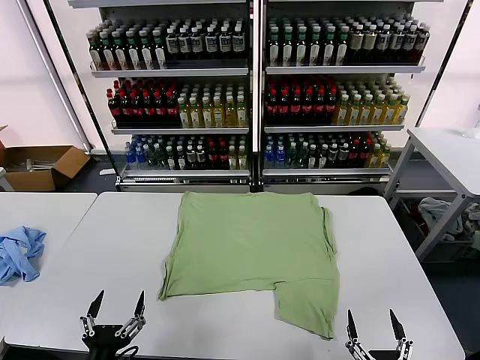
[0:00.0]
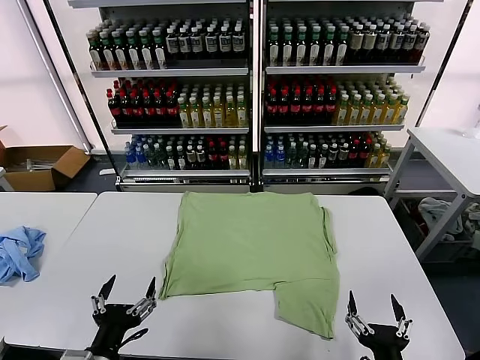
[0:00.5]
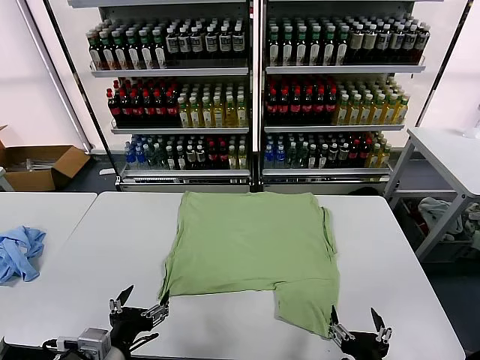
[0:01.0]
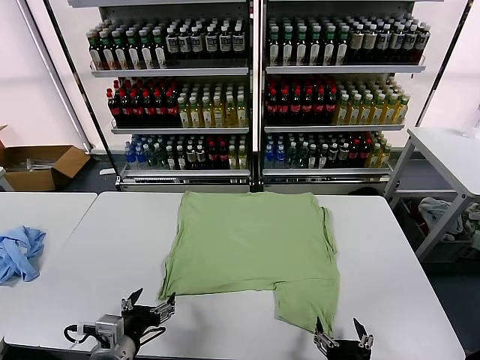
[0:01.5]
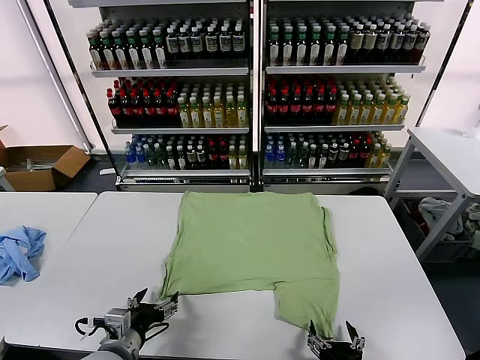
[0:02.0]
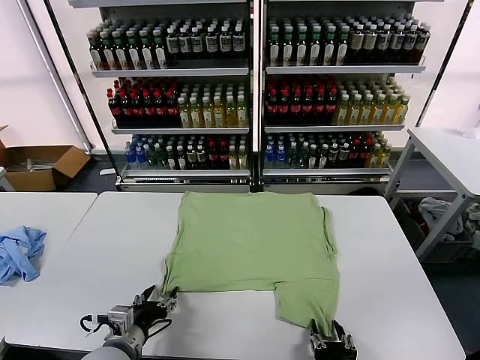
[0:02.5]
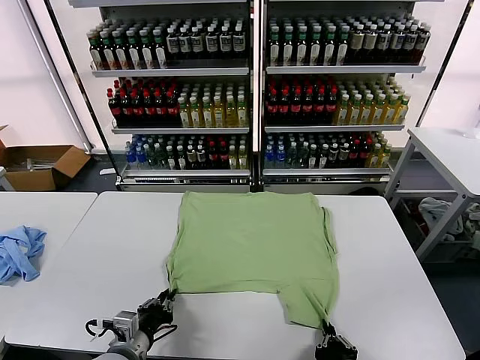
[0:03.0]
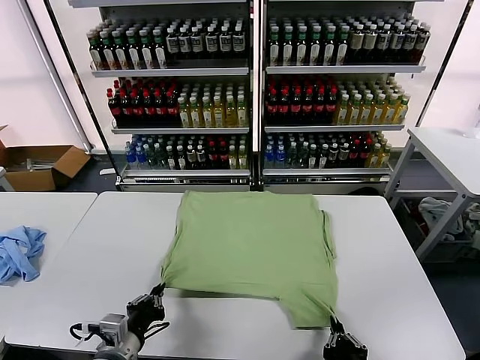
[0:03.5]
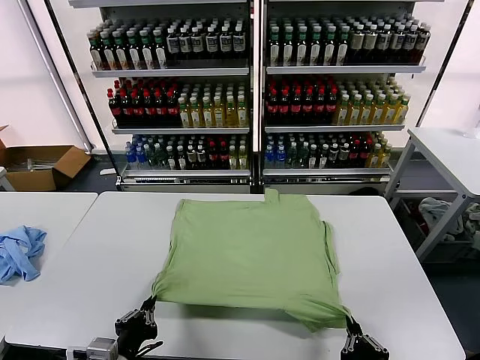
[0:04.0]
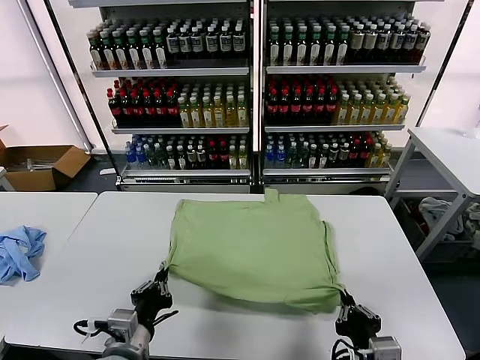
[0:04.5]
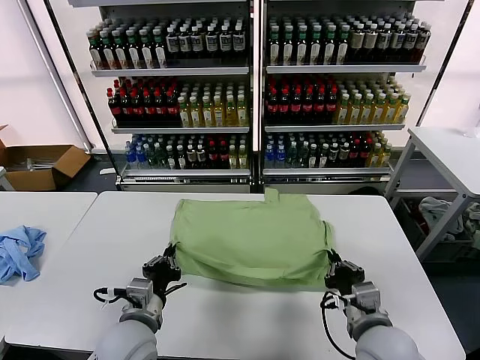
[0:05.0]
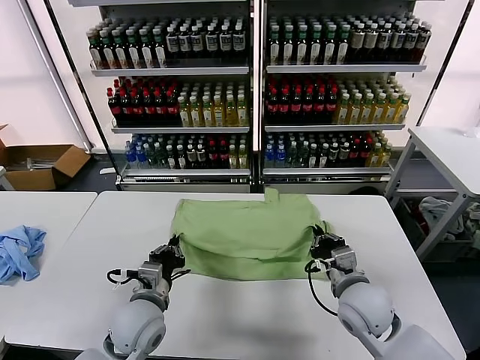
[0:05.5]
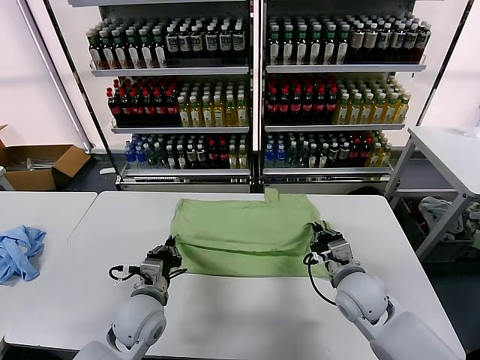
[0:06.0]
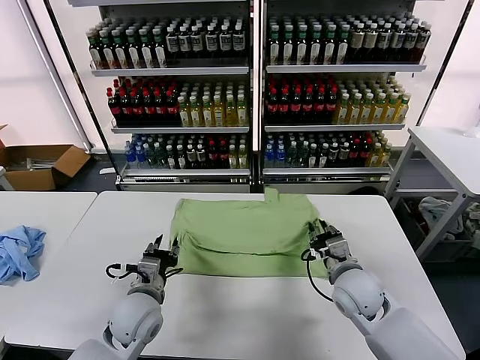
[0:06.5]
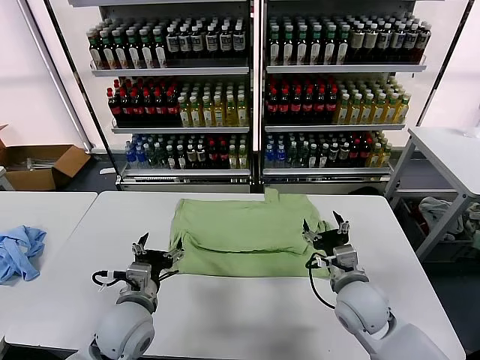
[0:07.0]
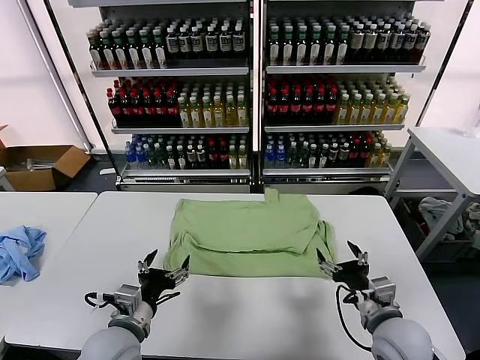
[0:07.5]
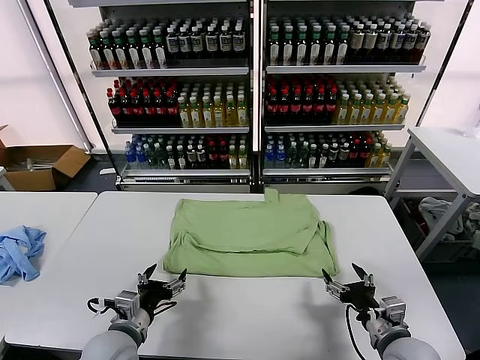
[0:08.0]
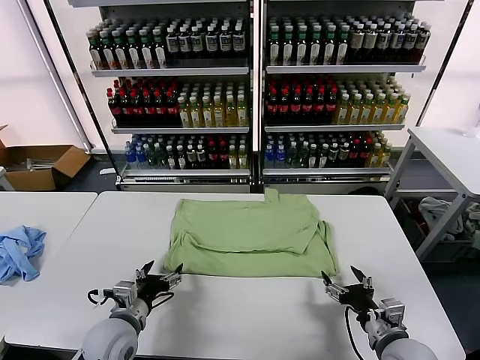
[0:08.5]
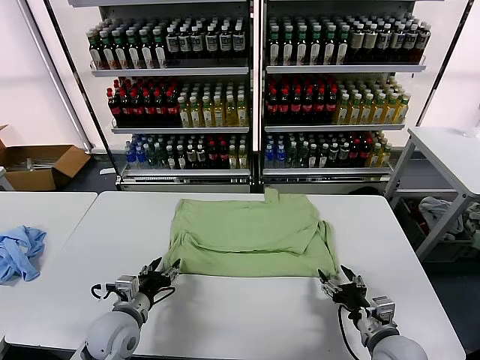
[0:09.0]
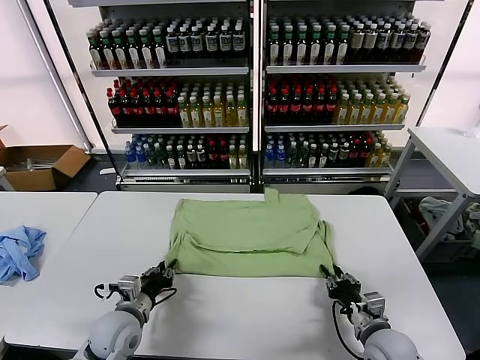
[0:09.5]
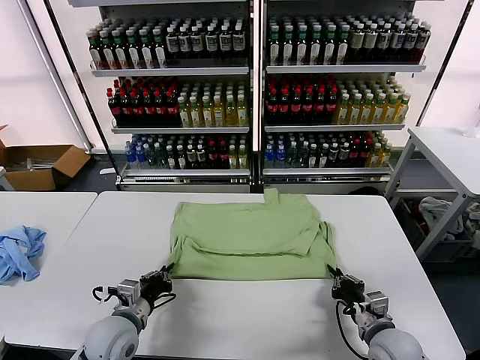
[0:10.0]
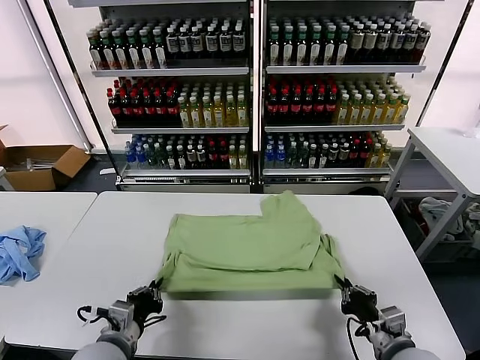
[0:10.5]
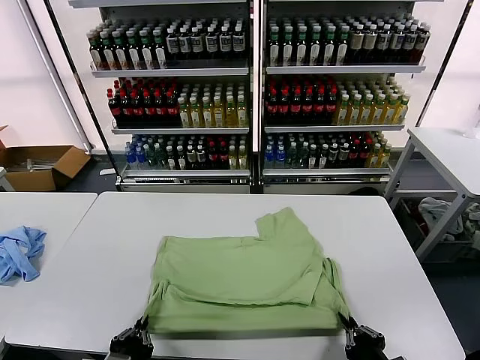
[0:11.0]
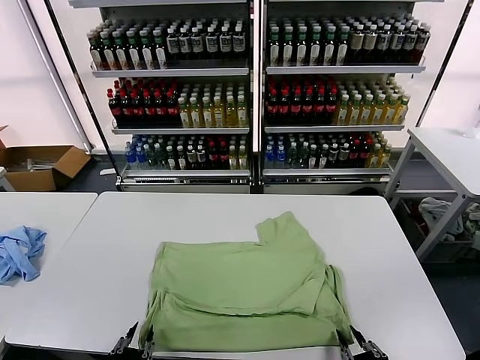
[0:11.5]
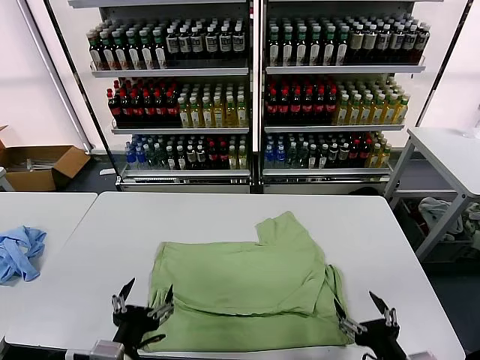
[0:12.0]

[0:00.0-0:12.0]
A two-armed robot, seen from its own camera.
Task of the whole recording: fold and organize the clothes.
Step, 0:00.0 to 0:03.0: use both grippers simultaneously to clamp the lower edge of the clothing fabric.
Step, 0:03.5 to 0:06.5: use both grippers to drag the lower edge of the fabric forward and fold it over the upper edge.
Step, 0:07.0 to 0:11.5: Drag the clothes downward with both gripper.
0:02.0 to 0:04.0: The left gripper shifts about 5 cm backward, and closes. The right gripper ends up approximately 5 cm from where it was, and closes up.
0:04.0 to 0:06.0: The left gripper is displaced forward by about 15 cm. The right gripper goes roughly 25 cm forward.
0:06.0 to 0:08.0: The left gripper moves backward, some 5 cm, and opens its fingers. The right gripper is displaced backward and to the right by some 15 cm, and opens up.
0:08.0 to 0:10.0: The left gripper closes its fingers; the right gripper closes.
0:10.0 to 0:12.0: The two grippers go some 15 cm backward and upward. The left gripper opens its fingers; the right gripper opens up.

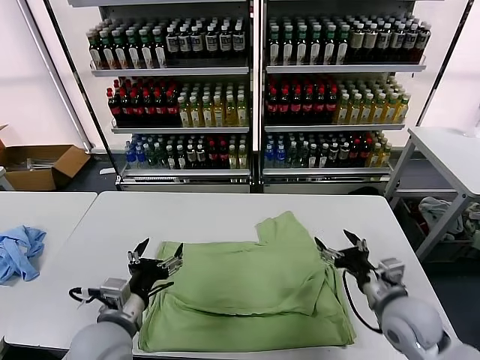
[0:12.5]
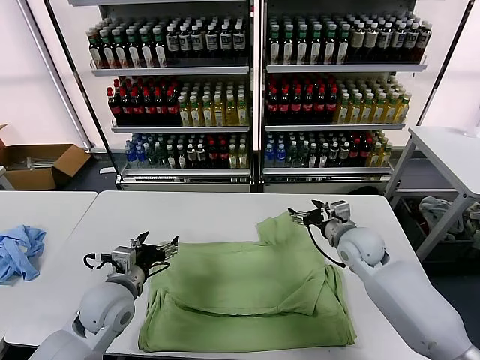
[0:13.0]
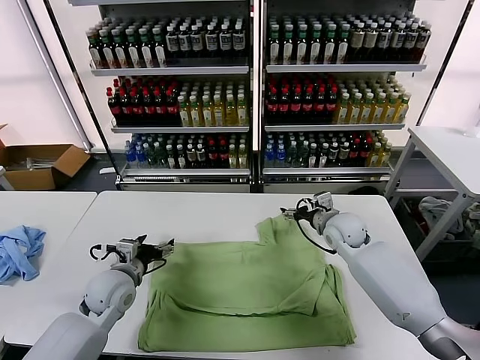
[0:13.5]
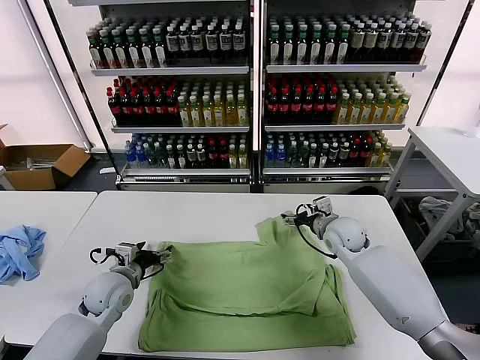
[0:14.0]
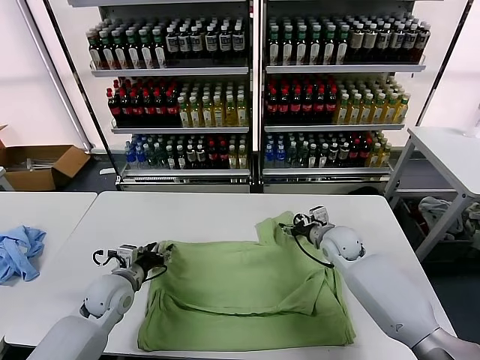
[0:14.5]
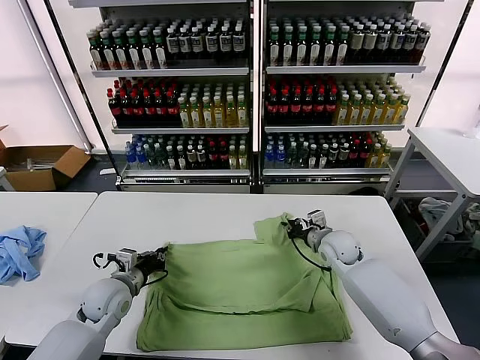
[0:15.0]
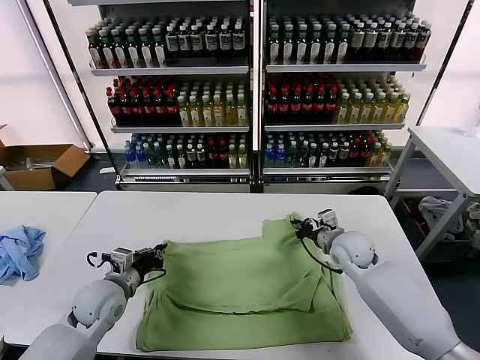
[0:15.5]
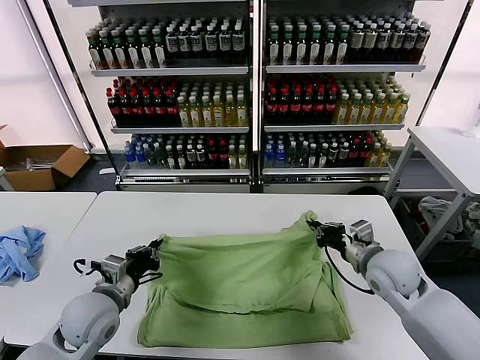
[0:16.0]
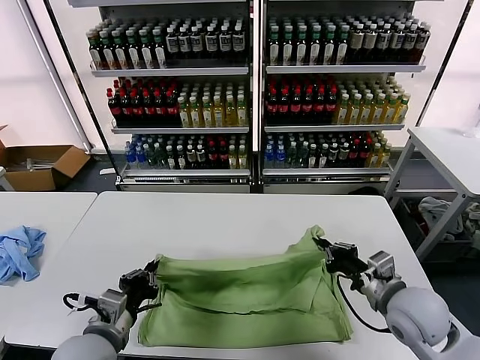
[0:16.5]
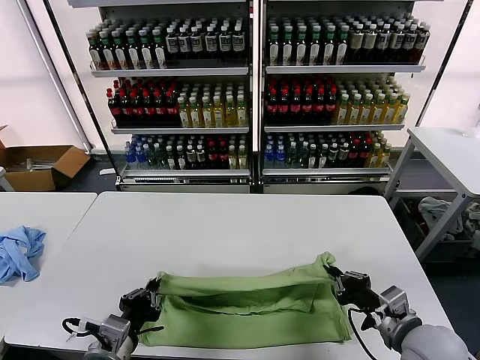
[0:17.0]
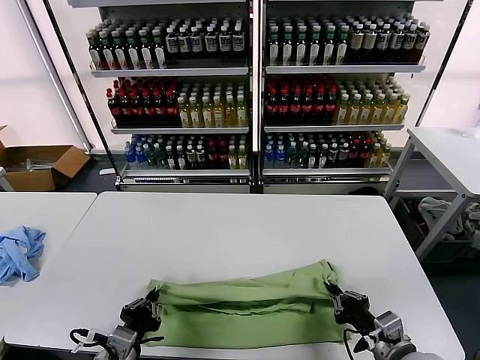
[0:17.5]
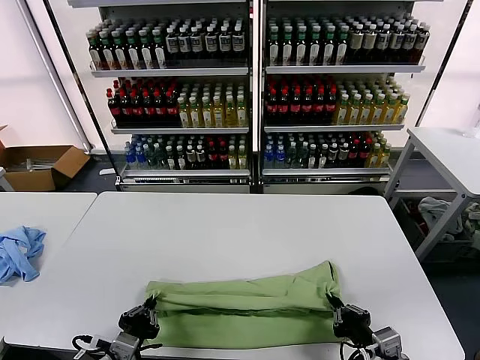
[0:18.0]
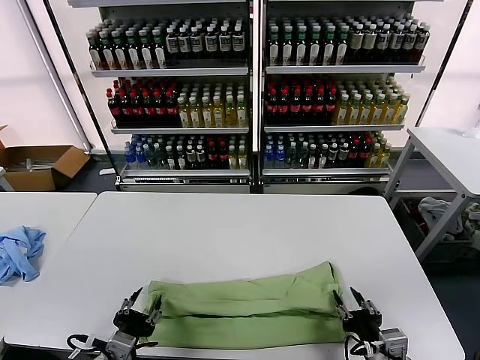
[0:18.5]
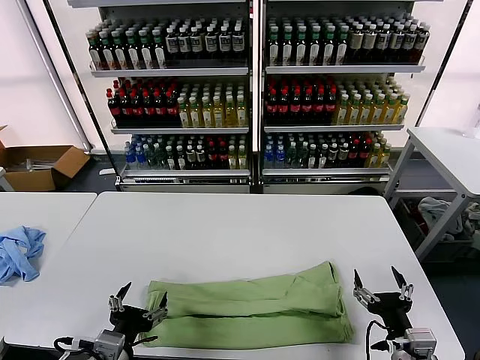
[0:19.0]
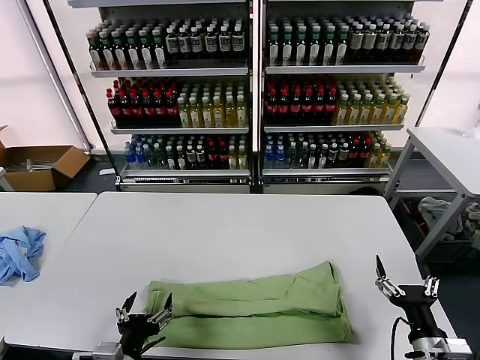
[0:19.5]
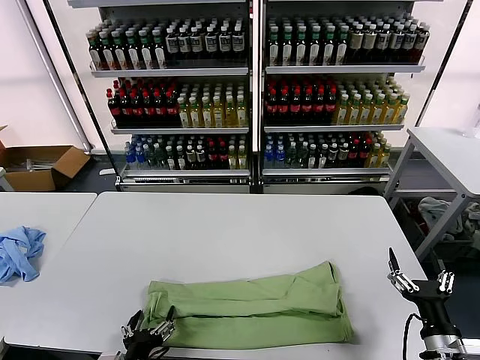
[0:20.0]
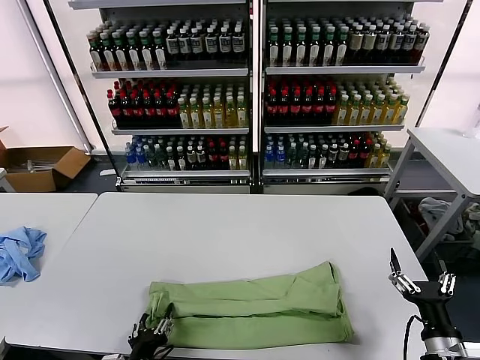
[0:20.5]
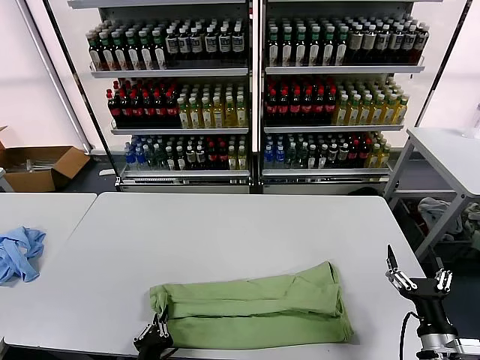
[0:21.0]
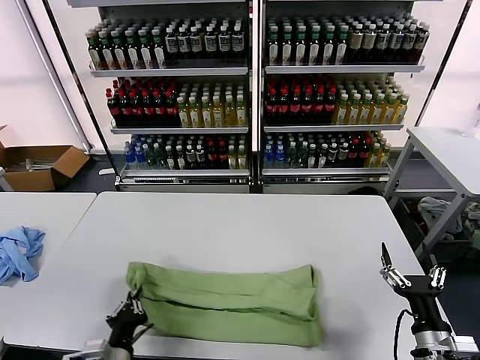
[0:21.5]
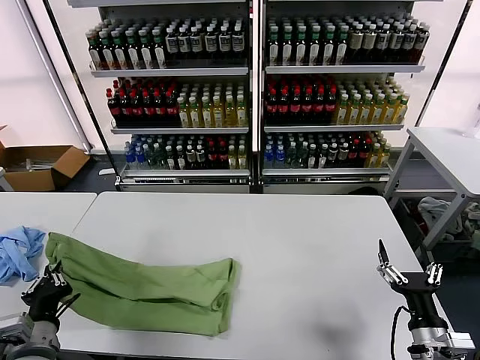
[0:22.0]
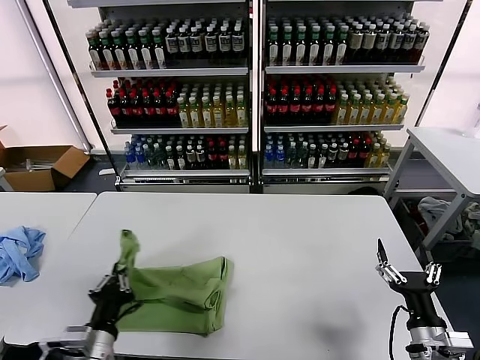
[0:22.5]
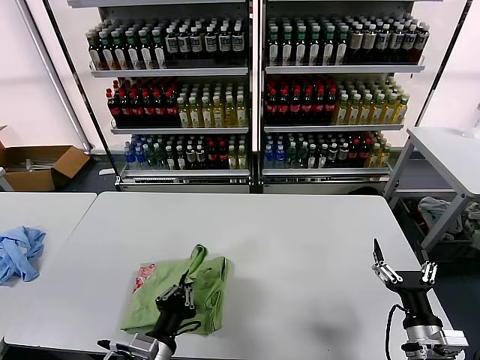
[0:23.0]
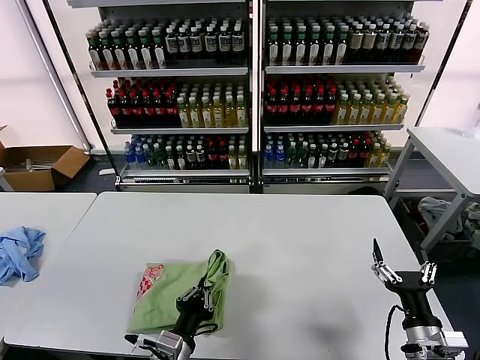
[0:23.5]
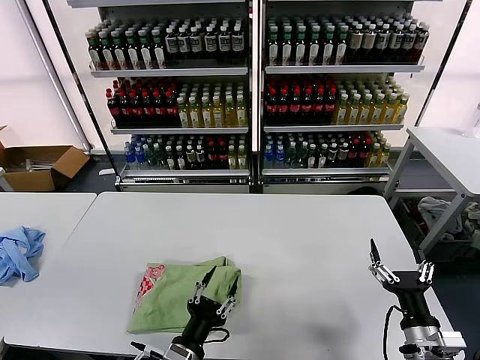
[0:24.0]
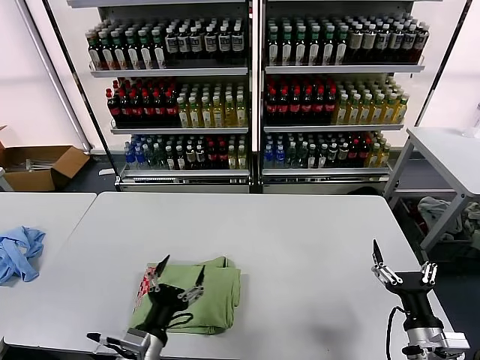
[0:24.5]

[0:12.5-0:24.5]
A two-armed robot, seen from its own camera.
Task of the whole recording: fold and organize the clothes.
Step, 0:12.5 to 0:15.0: use both grippers simultaneously to clamp the upper edge of the clothing fabric.
Step, 0:15.5 to 0:18.0: use both grippers to drag the upper edge of the fabric backward and fold it over the lower edge.
Step, 0:18.5 to 0:21.0: use the left gripper to clamp the left edge of the fabric.
Step, 0:21.5 to 0:24.0: use the left gripper to drag the left edge of the fabric to the left and folds it over the right edge.
0:12.5 to 0:14.5: The right gripper shifts some 20 cm forward. Meanwhile the left gripper heads forward, downward and to the left, covering roughly 15 cm.
0:14.5 to 0:16.5: The left gripper is displaced backward and upward by about 15 cm, and closes its fingers; the right gripper travels backward by roughly 20 cm, and closes its fingers.
0:16.5 to 0:18.5: The right gripper goes about 15 cm backward and downward, and opens its fingers. The left gripper is displaced backward by some 5 cm, and opens.
0:18.5 to 0:20.5: The left gripper goes about 5 cm downward. Meanwhile the right gripper travels to the right by some 10 cm, and opens.
0:20.5 to 0:22.5: The left gripper travels upward by about 10 cm, goes to the left and returns, some 10 cm each way, and closes its fingers.
0:22.5 to 0:24.5: The left gripper goes roughly 10 cm to the right, and opens its fingers.

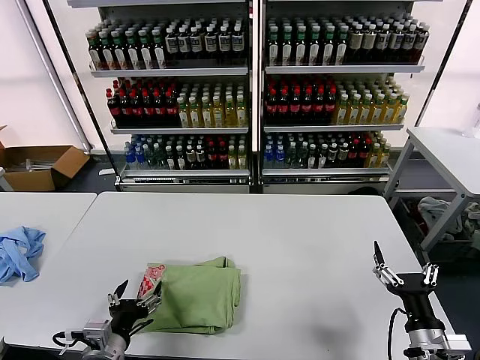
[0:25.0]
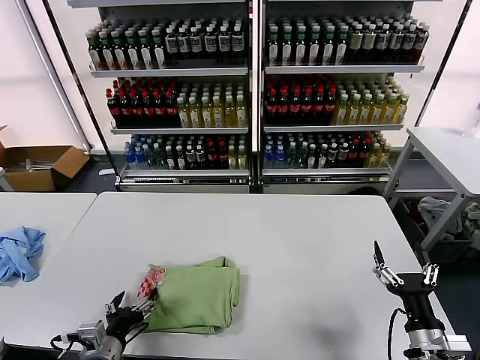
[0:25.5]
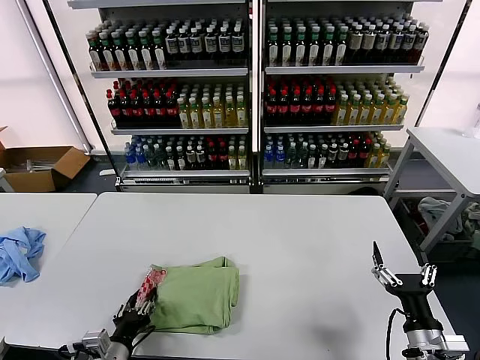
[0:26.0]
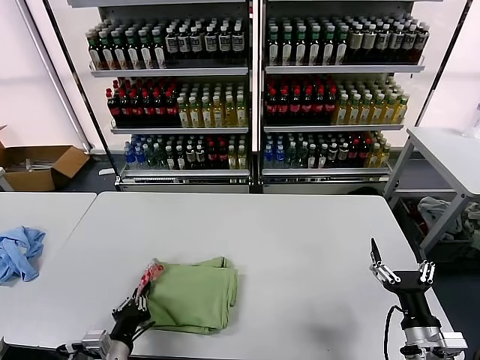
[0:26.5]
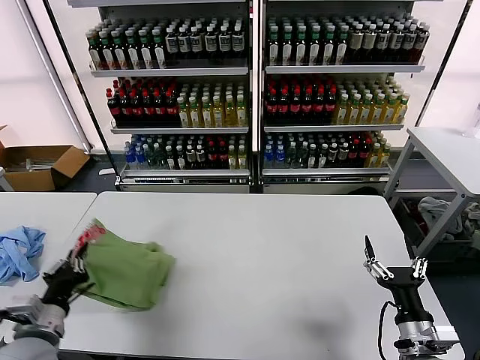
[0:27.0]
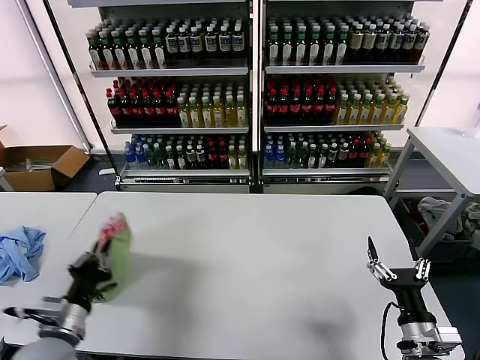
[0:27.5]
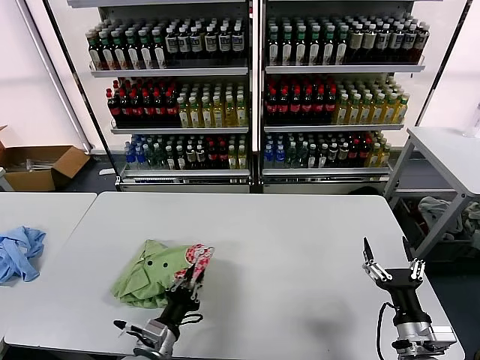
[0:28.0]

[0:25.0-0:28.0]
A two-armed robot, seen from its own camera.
Task of the whole recording: fold and organize the clothes.
0:25.0 to 0:26.5: The left gripper closes up.
0:26.5 to 0:28.0: The left gripper shifts about 5 cm to the right.
